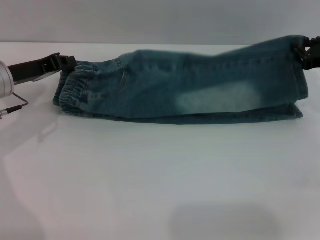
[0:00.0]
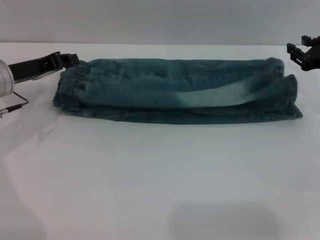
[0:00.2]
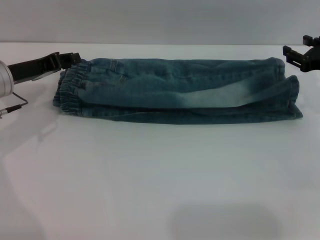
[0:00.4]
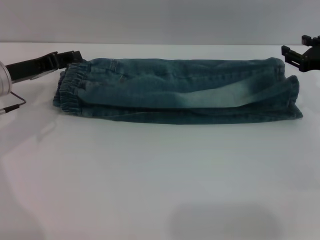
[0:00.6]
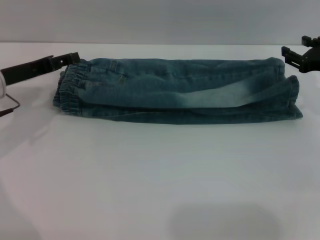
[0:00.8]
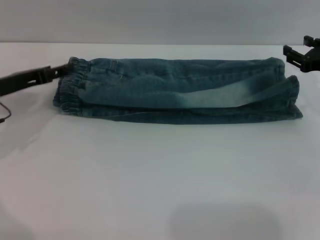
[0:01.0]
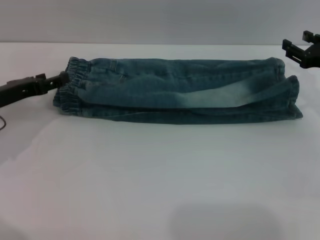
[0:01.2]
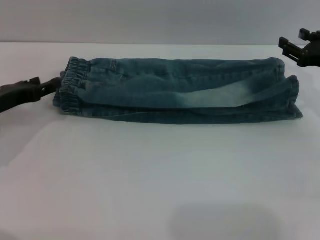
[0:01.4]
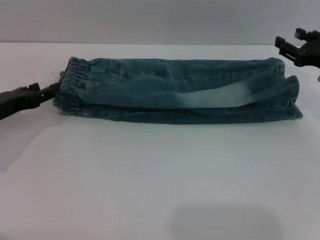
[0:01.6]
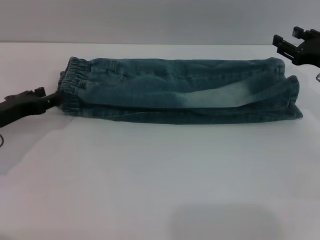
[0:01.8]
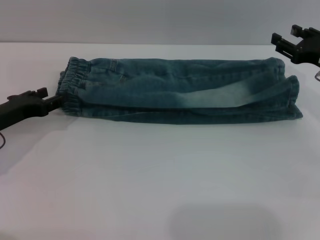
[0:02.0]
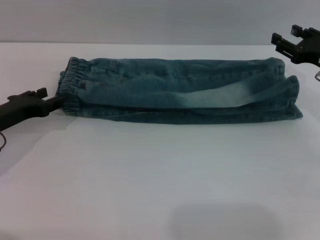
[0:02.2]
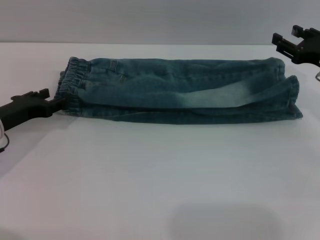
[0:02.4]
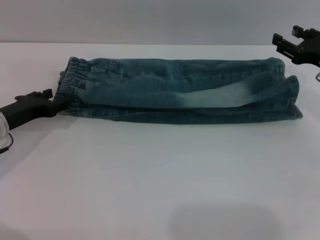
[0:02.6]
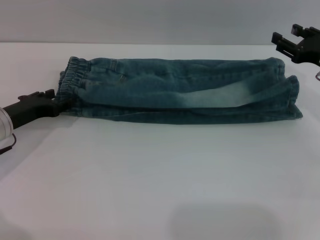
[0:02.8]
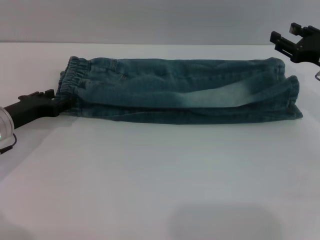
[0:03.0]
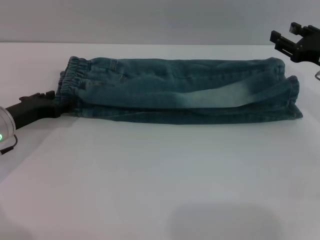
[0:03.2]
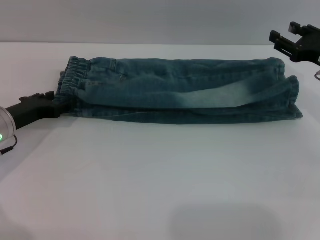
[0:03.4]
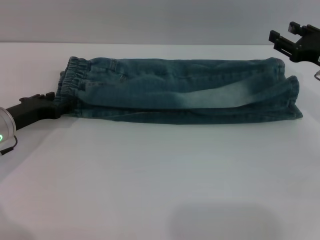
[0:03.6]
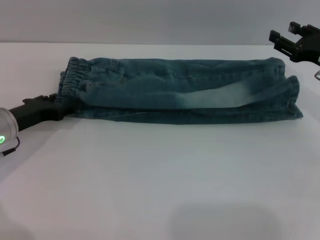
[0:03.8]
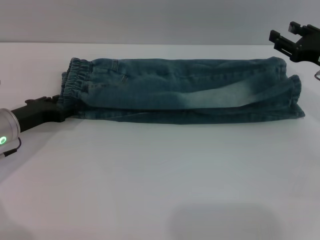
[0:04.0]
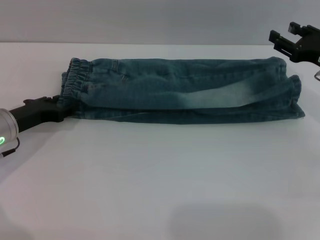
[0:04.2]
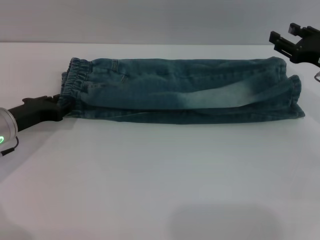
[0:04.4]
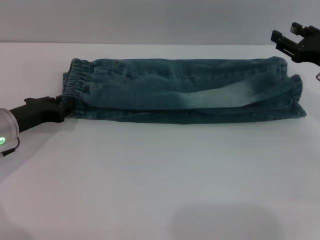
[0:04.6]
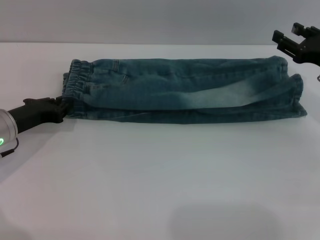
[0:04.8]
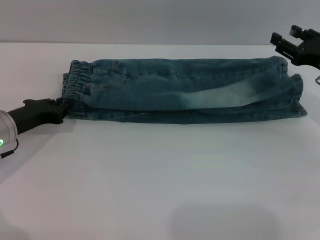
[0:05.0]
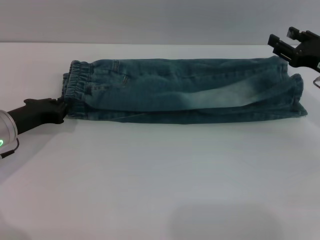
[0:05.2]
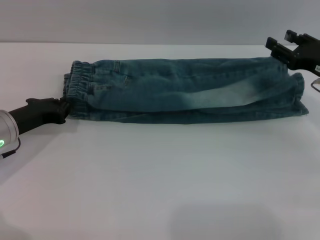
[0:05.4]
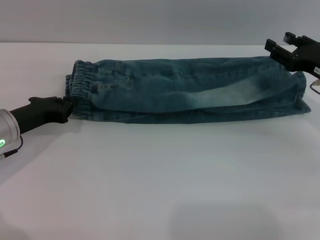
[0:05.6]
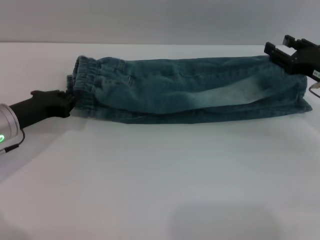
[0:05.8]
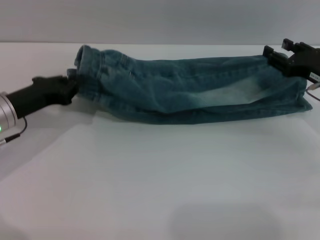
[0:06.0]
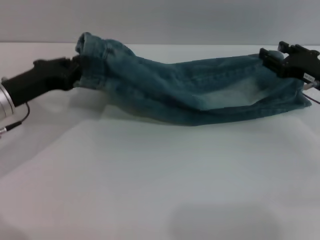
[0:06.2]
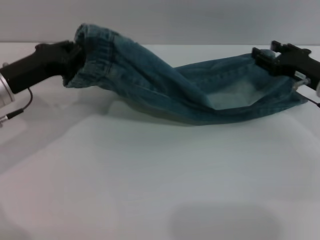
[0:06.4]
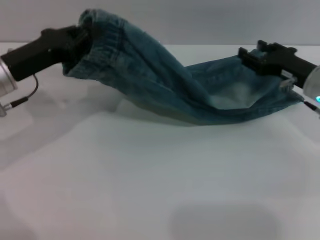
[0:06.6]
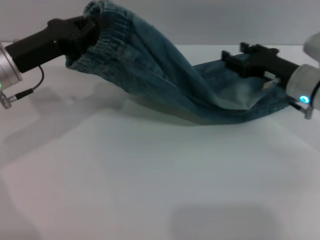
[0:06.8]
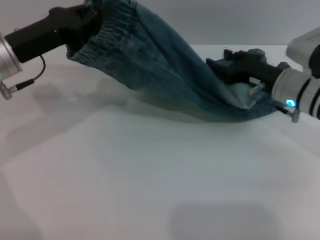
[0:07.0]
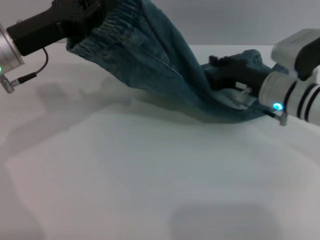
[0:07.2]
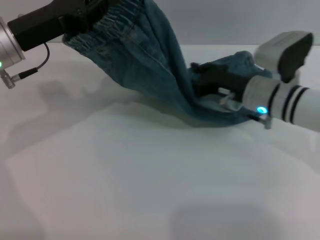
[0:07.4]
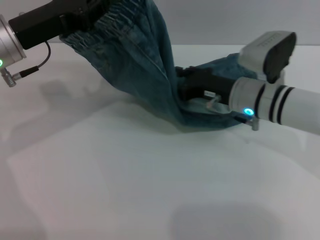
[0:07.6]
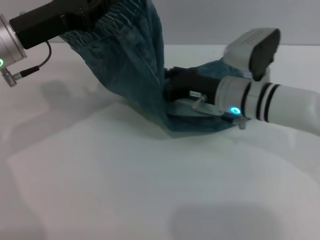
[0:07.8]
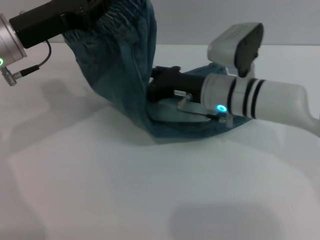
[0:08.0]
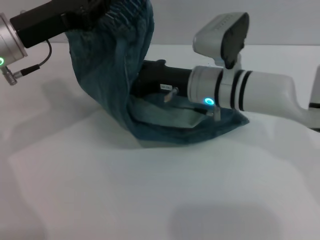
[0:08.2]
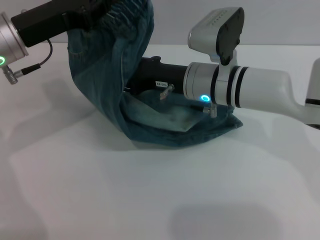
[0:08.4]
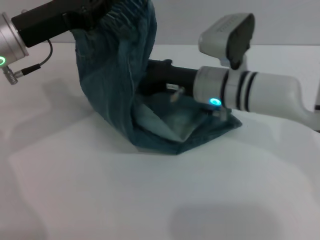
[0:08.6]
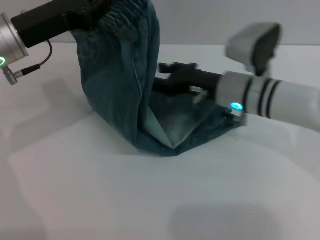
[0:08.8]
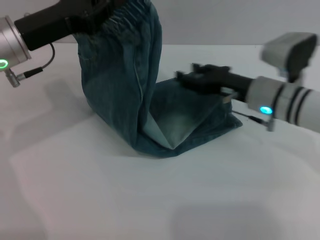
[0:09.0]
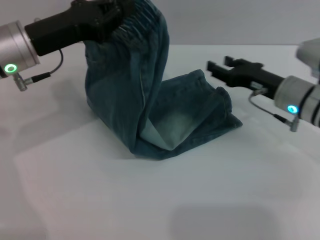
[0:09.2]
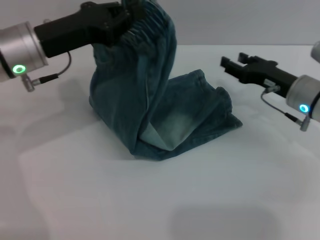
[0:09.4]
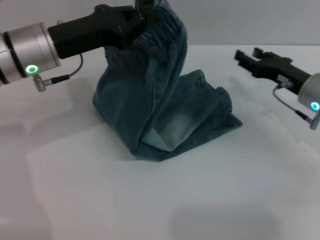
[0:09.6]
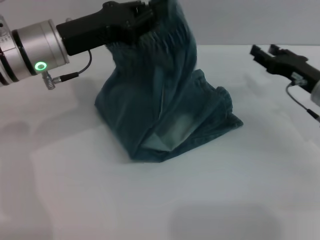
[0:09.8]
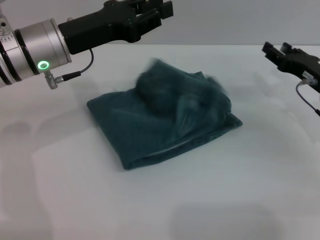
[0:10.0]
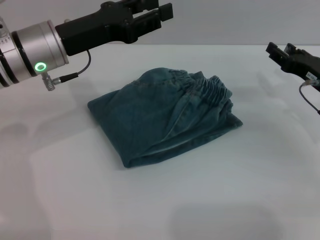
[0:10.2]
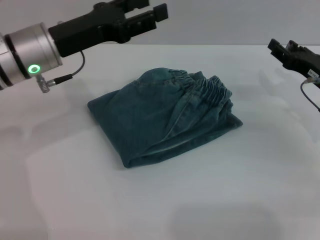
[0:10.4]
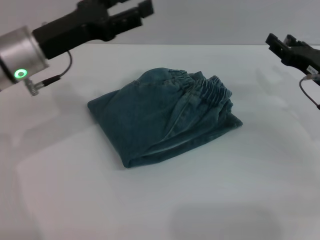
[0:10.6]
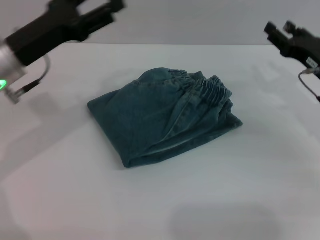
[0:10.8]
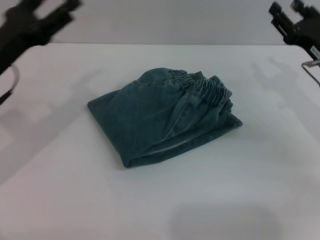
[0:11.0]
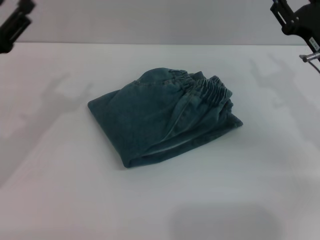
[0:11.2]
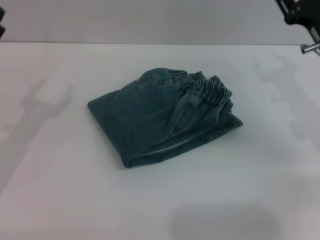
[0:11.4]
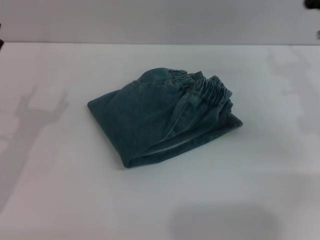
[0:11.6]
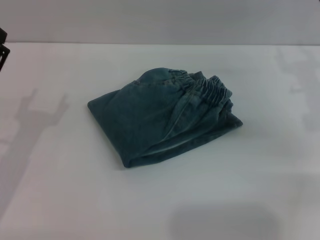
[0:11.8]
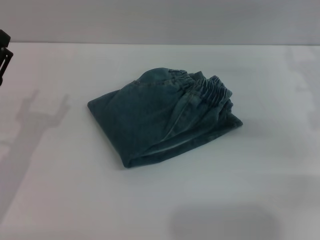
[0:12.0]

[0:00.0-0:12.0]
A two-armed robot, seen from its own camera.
Step, 0:01.8 to 0:10.2: Fold the pants from left to right with the left gripper.
0:00.0 to 0:01.6: The right gripper opens up. The left gripper is displaced backward by approximately 5 cm, and opens up.
0:01.6 to 0:03.0: The grippers stay close to where they were, moving slightly.
0:03.0 to 0:04.4: The two grippers keep their place.
0:04.4 to 0:06.0: The left gripper closes its fingers.
0:06.0 to 0:07.6: The right gripper heads to the left, covering some 15 cm; the left gripper is displaced upward by about 10 cm.
0:07.6 to 0:09.0: The right gripper moves approximately 5 cm to the left and comes back.
0:09.0 to 0:10.4: The right gripper goes some 10 cm to the right; the left gripper opens.
0:10.4 to 0:12.0: The left gripper travels backward, downward and to the left by roughly 20 cm. The right gripper goes approximately 5 cm upward.

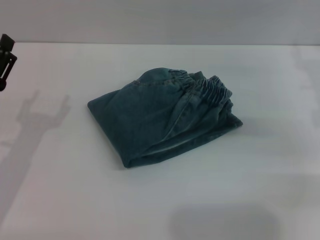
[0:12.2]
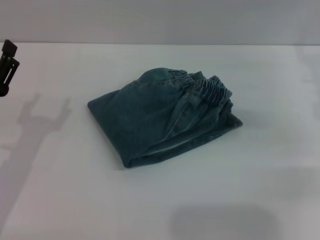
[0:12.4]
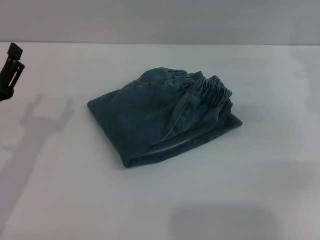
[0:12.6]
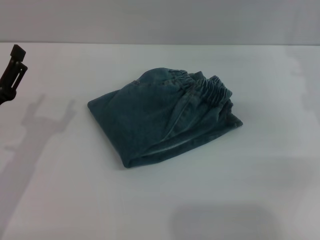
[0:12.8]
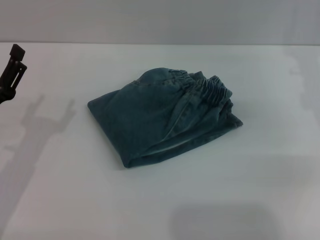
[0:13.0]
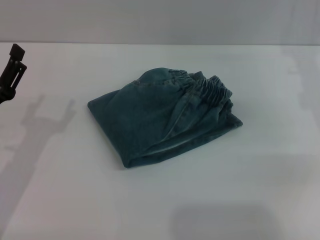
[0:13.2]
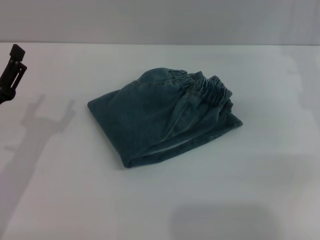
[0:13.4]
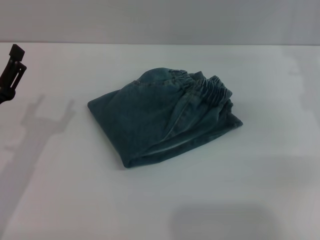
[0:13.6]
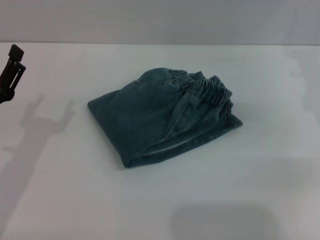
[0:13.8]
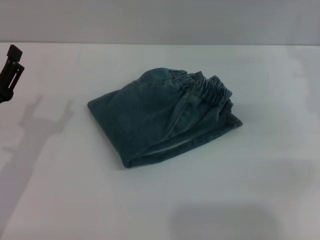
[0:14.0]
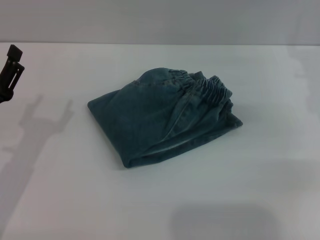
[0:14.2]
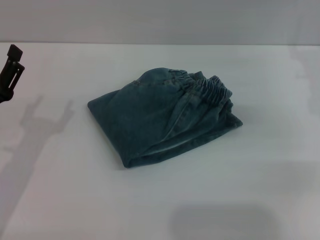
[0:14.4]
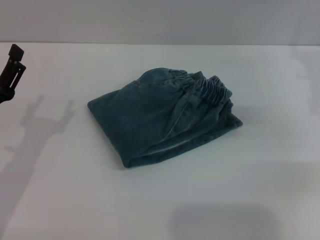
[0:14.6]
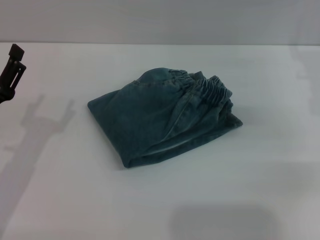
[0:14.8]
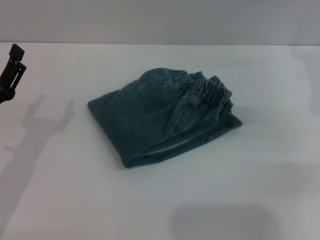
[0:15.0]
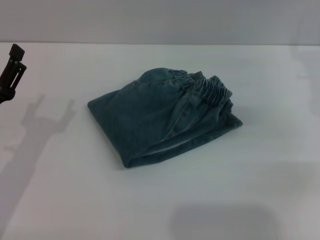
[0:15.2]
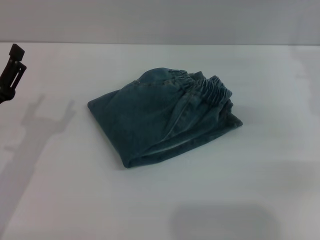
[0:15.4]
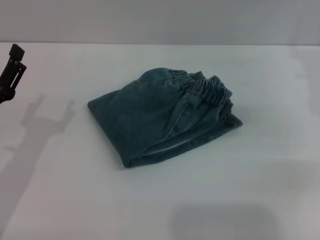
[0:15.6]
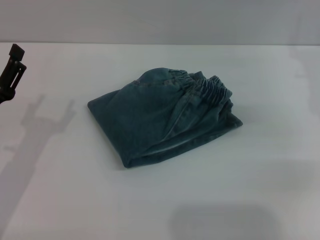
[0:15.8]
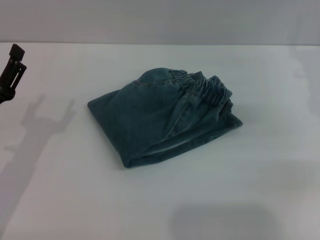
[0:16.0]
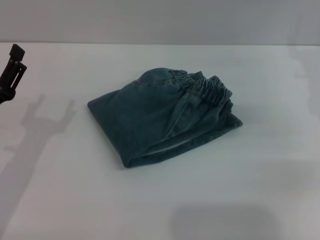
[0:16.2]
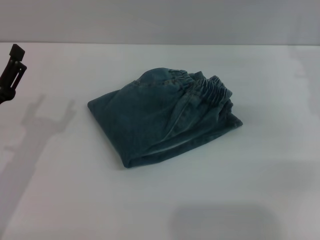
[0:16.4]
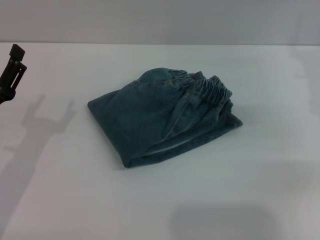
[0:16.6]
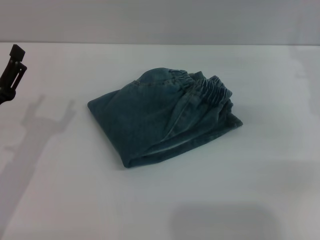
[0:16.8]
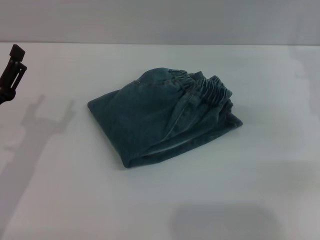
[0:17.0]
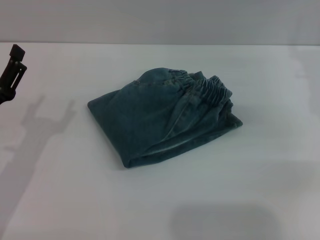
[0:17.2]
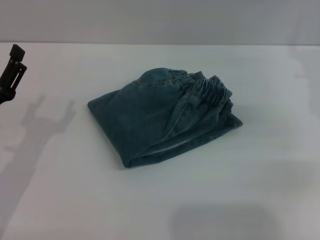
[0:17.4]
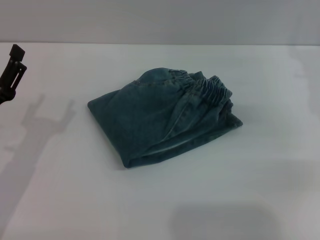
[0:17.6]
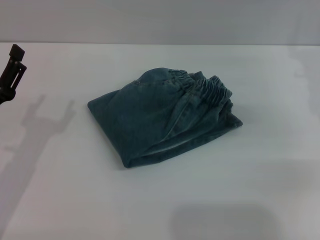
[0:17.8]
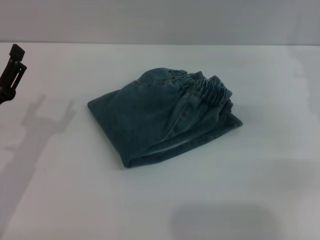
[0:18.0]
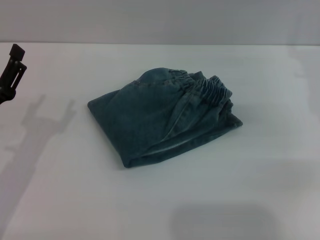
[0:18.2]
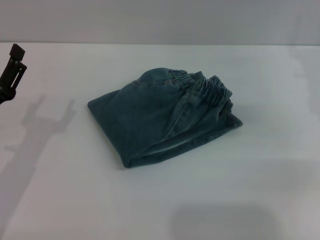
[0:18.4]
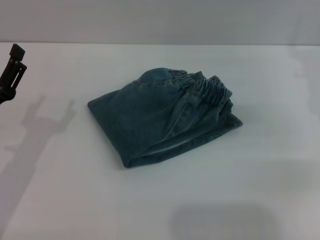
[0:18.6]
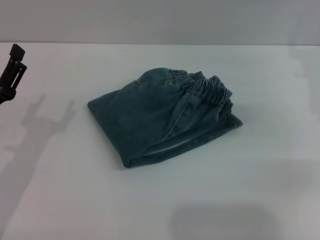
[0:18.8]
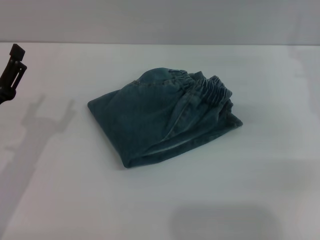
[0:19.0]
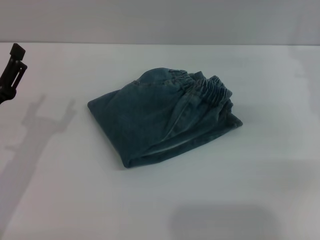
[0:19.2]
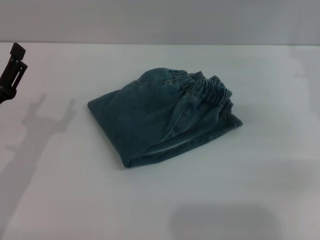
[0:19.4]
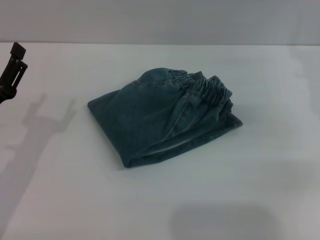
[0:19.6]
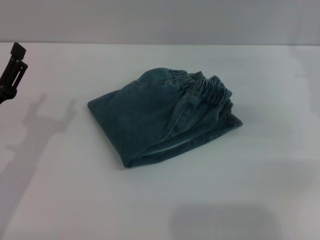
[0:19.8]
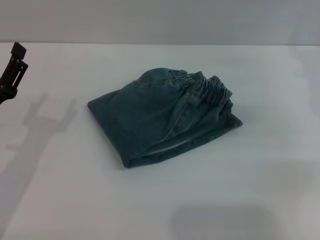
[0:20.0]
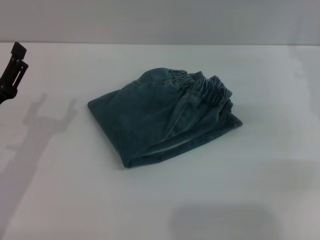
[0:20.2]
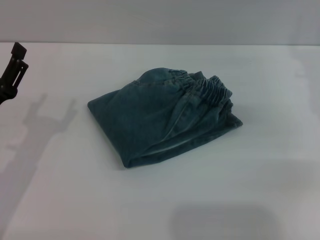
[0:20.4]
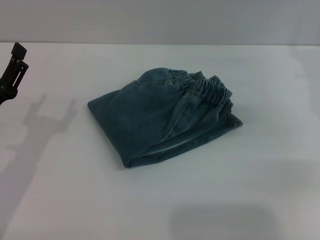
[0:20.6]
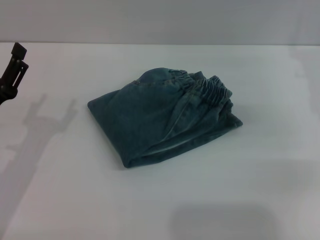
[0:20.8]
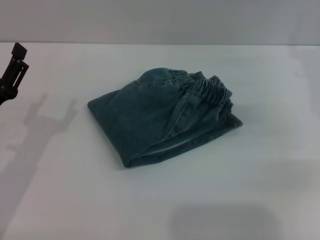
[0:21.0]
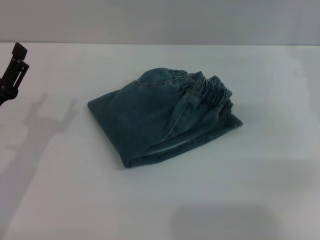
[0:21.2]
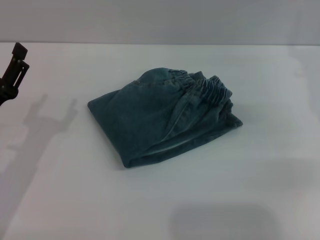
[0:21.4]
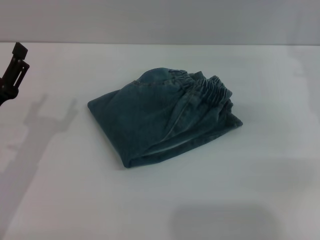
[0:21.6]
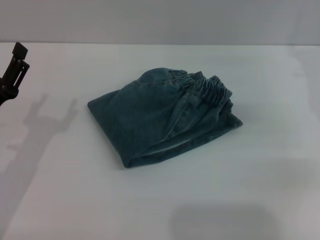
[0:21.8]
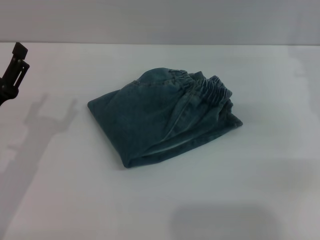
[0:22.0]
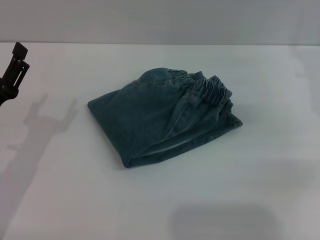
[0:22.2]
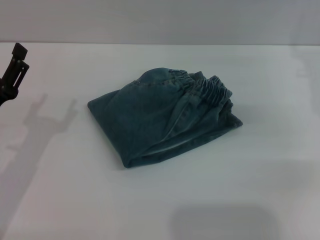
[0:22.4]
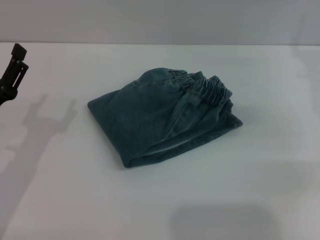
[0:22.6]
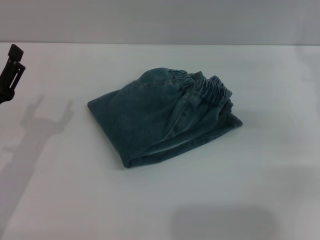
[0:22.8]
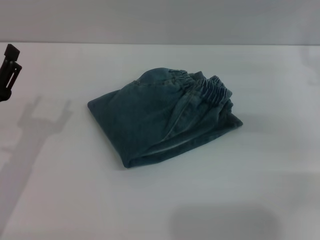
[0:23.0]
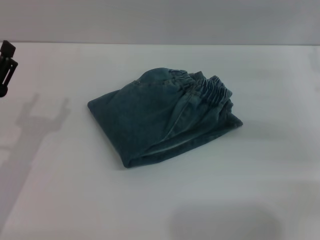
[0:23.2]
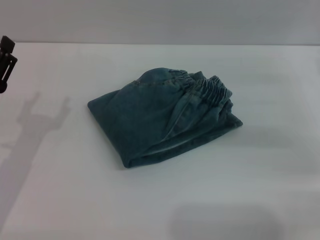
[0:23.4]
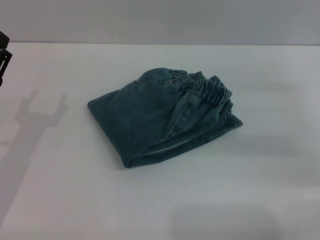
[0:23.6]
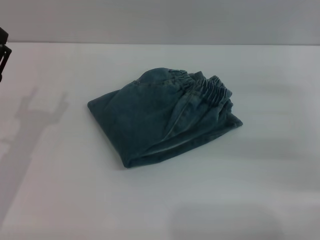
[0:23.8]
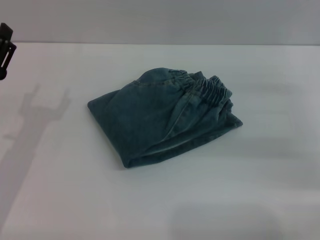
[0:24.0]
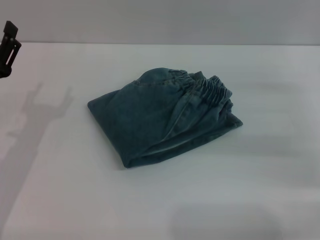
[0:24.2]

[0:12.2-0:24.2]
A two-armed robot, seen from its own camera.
0:12.2 to 0:13.8: The grippers move only a little.
0:13.8 to 0:21.2: The two grippers keep their place.
0:21.2 to 0:22.6: Neither gripper changes place.
